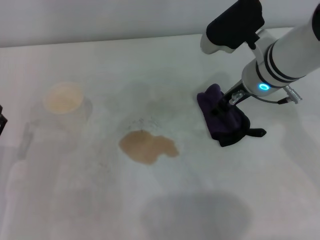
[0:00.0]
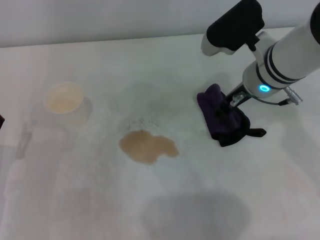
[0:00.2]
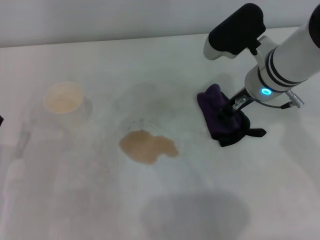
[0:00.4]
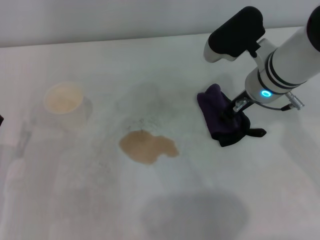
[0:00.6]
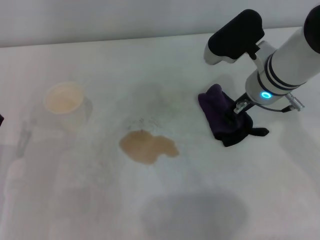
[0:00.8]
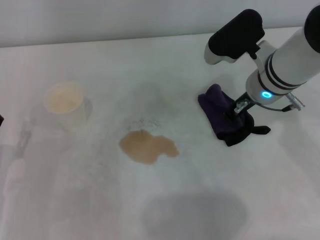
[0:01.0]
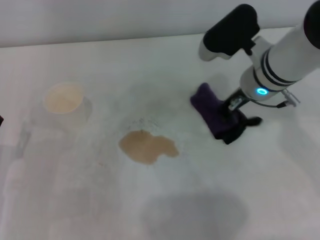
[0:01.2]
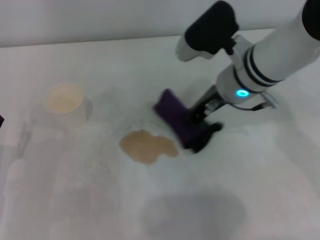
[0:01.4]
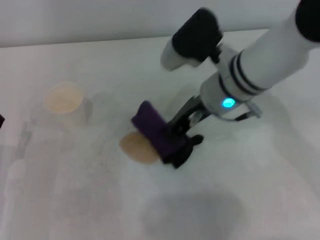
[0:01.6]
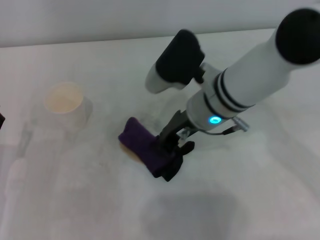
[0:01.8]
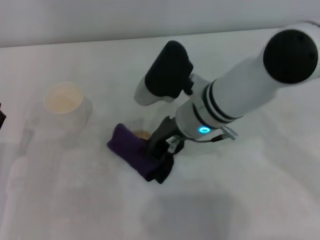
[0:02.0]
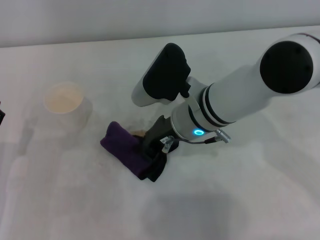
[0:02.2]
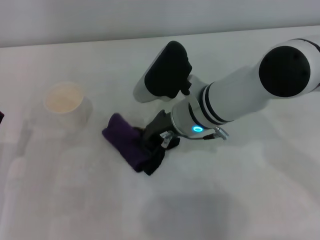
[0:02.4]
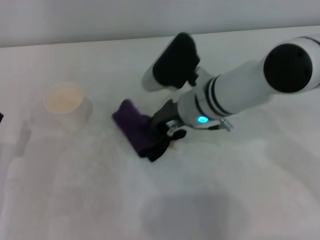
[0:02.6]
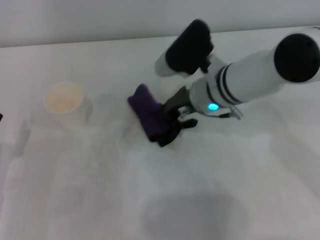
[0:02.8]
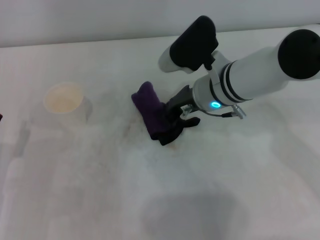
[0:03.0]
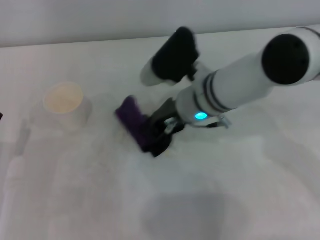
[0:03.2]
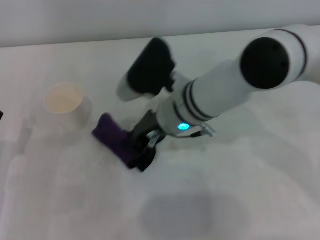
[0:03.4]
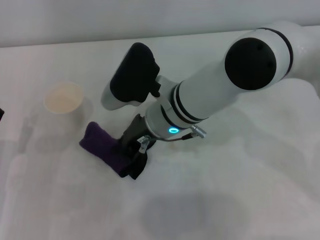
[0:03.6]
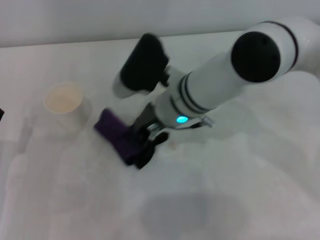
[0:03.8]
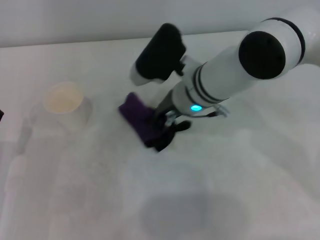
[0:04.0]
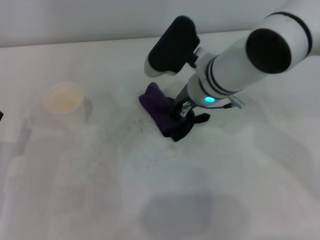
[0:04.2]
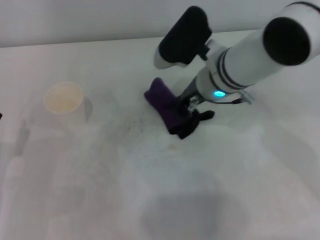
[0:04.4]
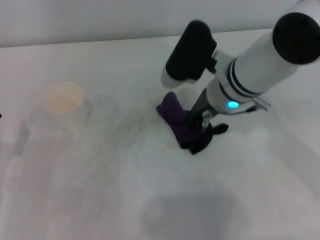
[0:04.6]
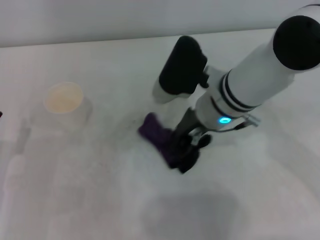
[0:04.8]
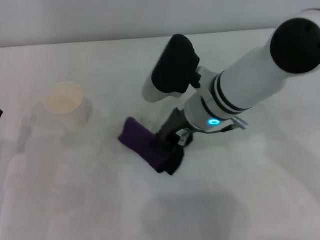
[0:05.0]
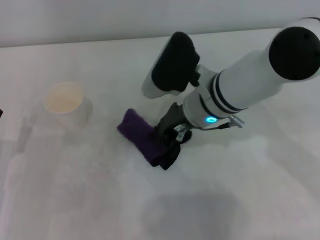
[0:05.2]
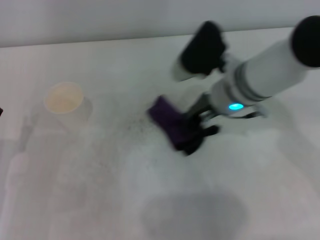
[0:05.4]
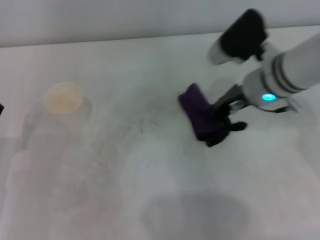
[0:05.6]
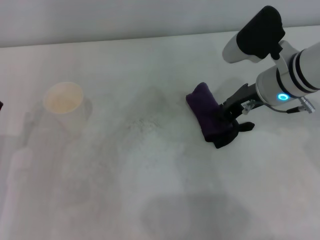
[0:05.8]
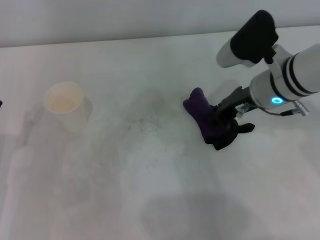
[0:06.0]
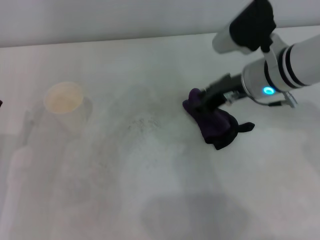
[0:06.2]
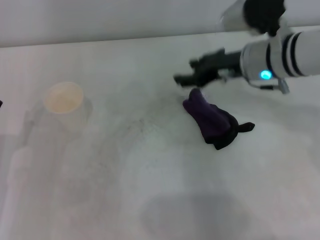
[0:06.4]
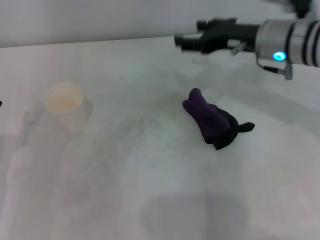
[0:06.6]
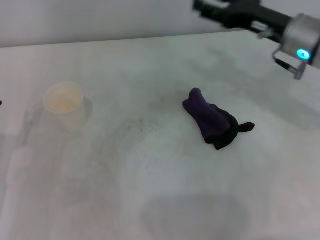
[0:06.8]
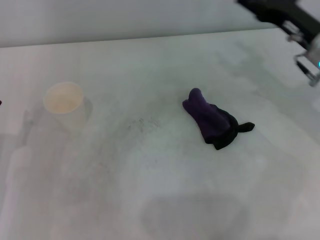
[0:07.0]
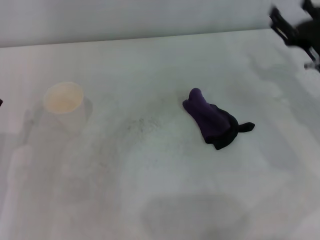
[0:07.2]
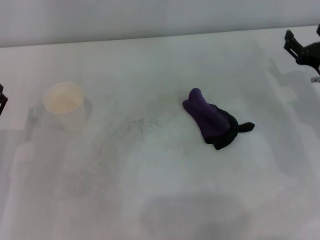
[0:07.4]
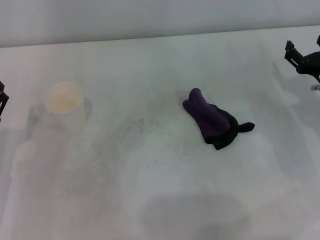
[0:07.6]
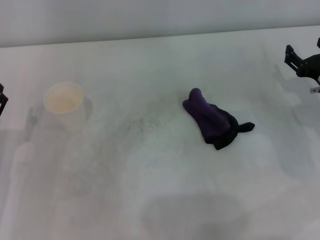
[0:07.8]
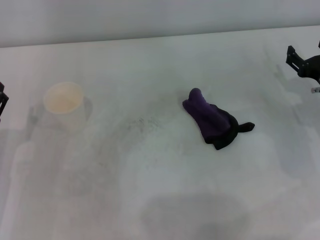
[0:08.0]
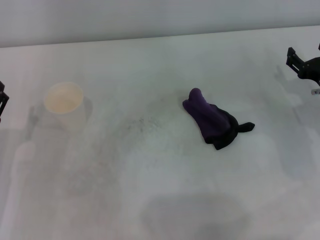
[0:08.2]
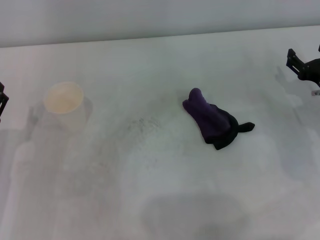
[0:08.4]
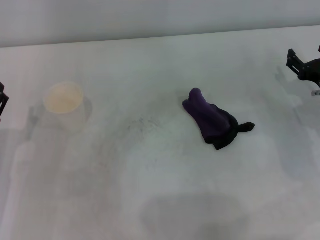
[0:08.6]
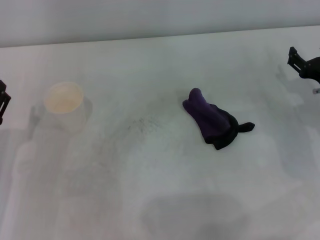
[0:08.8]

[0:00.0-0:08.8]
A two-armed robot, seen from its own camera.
Step, 0:01.2 to 0:05.4: Wipe the stains off the table with the right gripper.
Step, 0:05.6 to 0:06.0: Place the rag on the table with the right gripper.
0:00.0 to 0:01.4: The right gripper closes.
0:03.0 to 0:04.4: The right gripper moves some 10 cm to the left and comes back.
0:04.4 to 0:05.8: The right gripper heads to the right, covering approximately 10 cm.
0:05.8 to 0:07.4: The right gripper is displaced to the right and downward by some 15 cm, and opens its fingers.
0:07.4 to 0:08.8: There are only small adjustments of the grippers.
